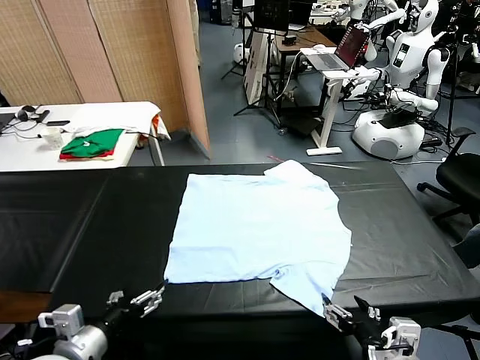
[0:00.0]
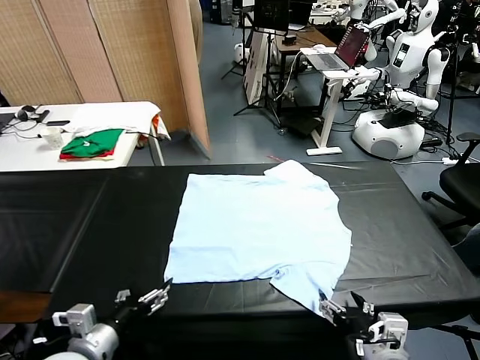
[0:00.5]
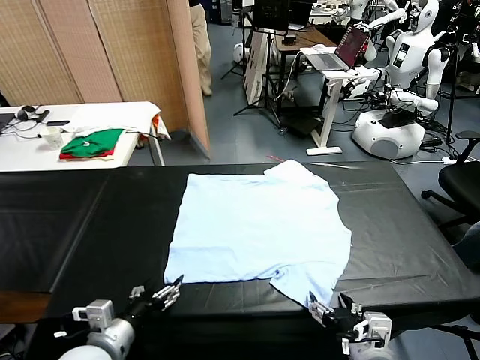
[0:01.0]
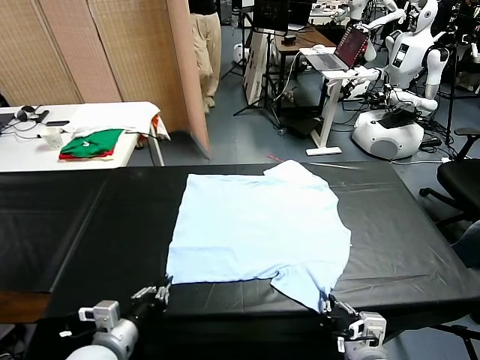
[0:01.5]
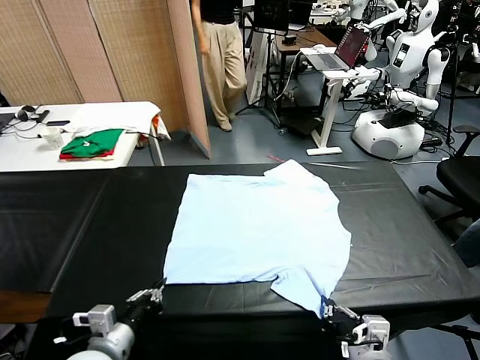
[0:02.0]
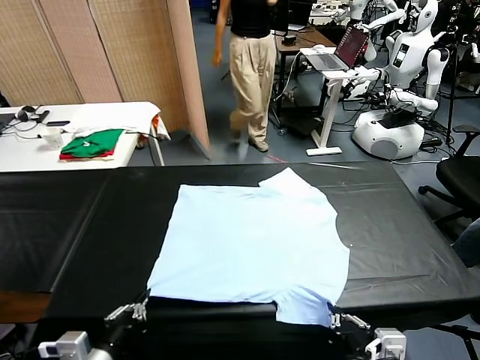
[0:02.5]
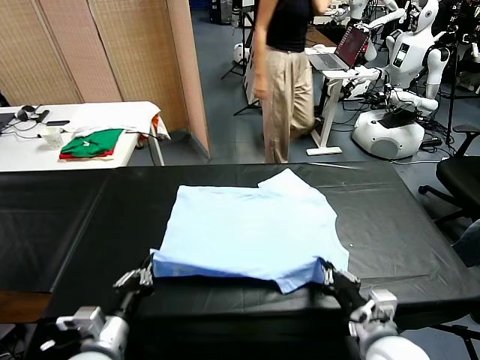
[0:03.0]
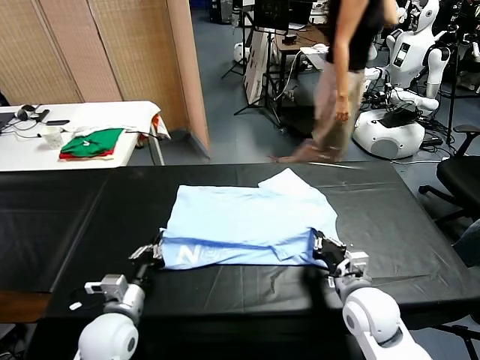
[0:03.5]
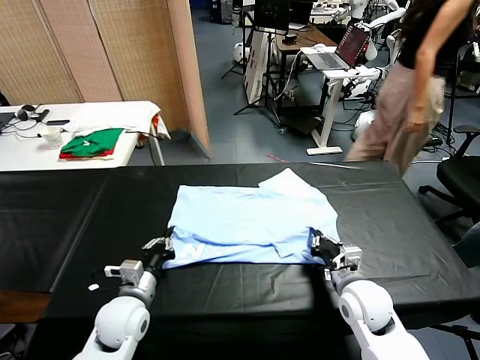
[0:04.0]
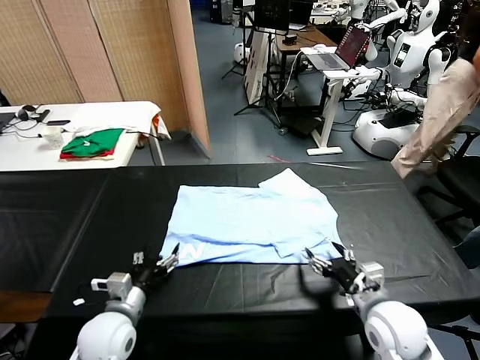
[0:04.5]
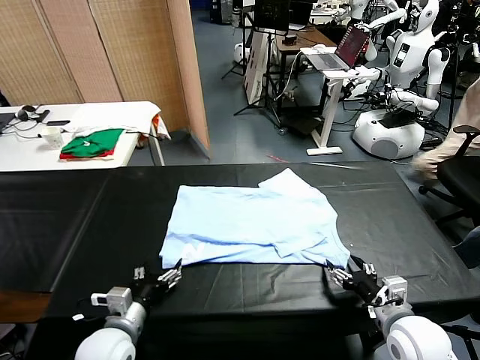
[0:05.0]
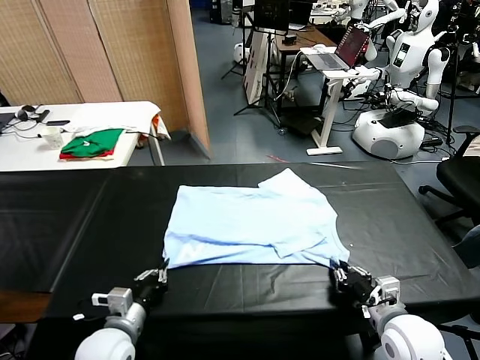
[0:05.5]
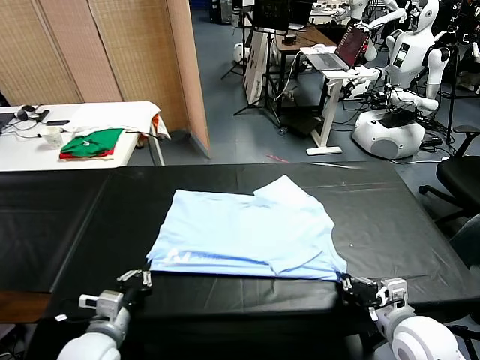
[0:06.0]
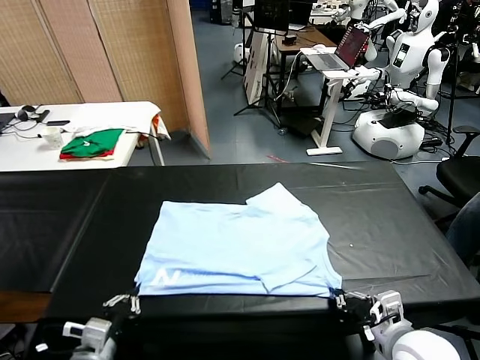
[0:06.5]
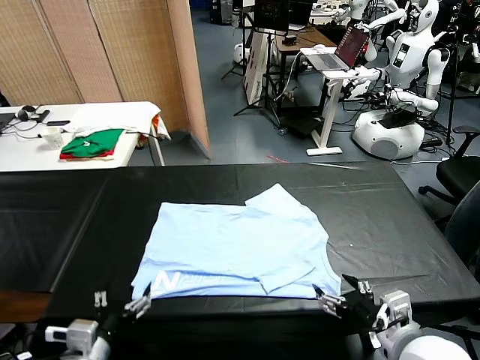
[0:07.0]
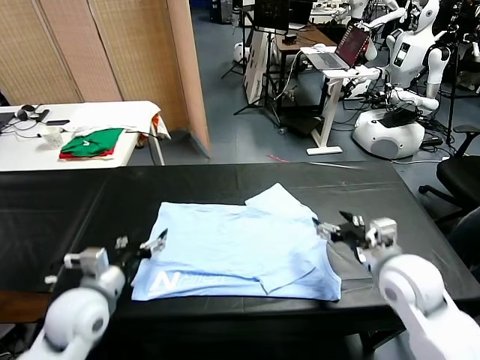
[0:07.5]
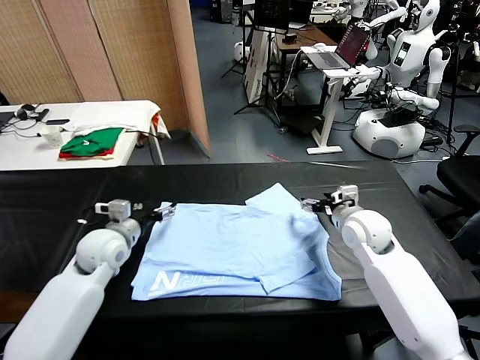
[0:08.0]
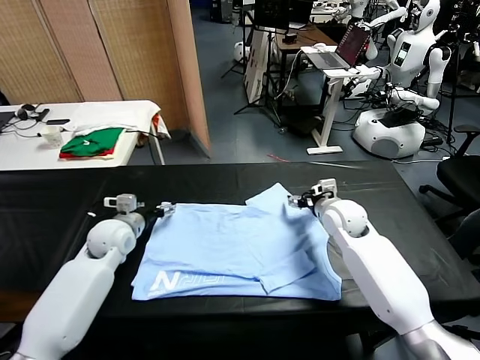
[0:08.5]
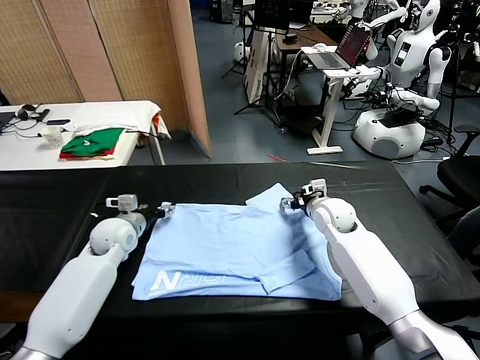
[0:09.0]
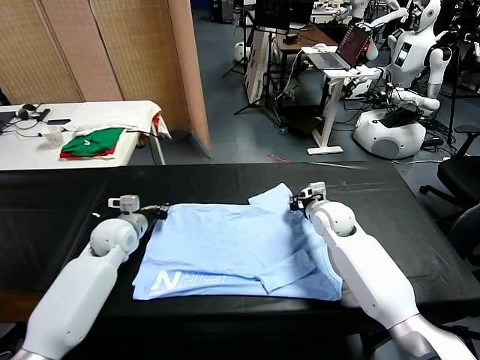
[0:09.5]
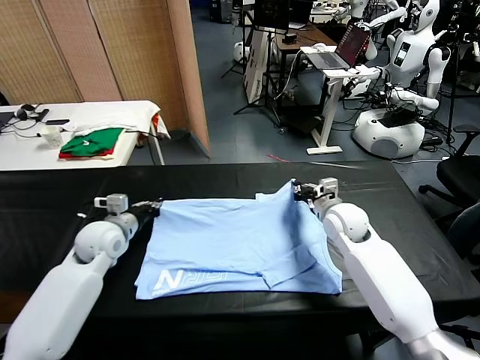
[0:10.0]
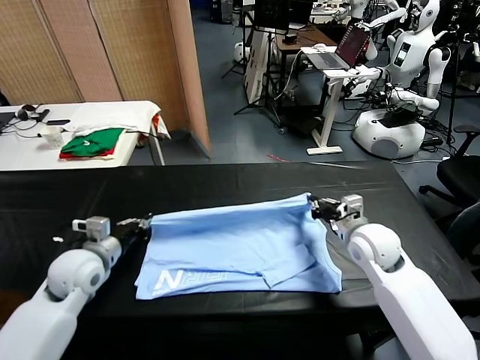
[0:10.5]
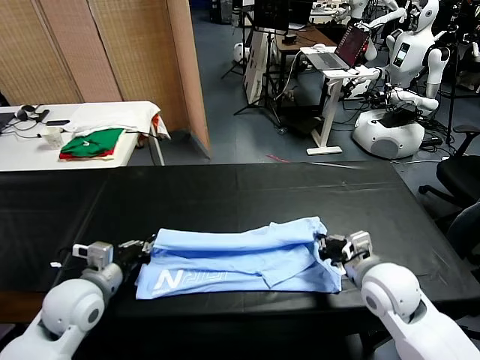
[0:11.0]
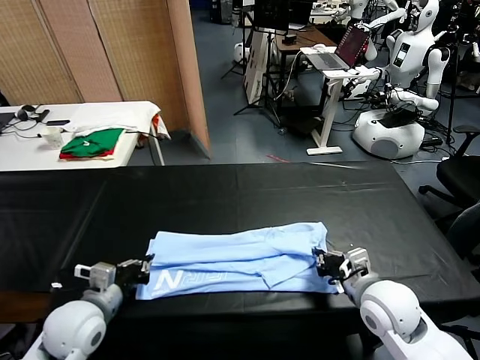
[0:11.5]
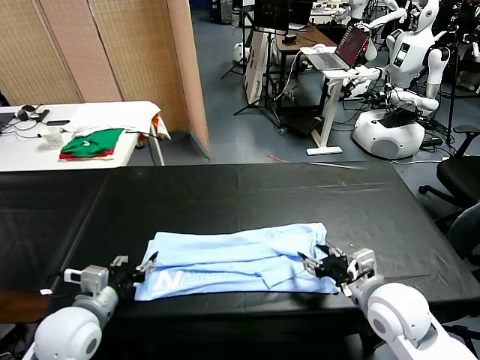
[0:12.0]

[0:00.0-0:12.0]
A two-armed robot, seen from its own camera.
Task of the whole recording: fold and organize the clothes.
Step, 0:00.0 to 0:01.5: use both grippers simultaneously to clamp the lower edge of the clothing fabric.
Step, 0:02.0 to 0:04.0: use both grippers to drag the lower edge of the fabric forward and fold it over the upper edge.
Step, 0:04.5 to 0:06.5: Drag the clothes downward with both gripper.
Step, 0:07.0 to 0:09.0: use both grippers simultaneously to clamp the upper edge of the clothing fabric.
Step, 0:09.5 to 0:11.5: use both grippers to drag the upper edge of the fabric backward and fold it over the lower edge.
0:02.0 to 0:04.0: Both grippers travel together forward, approximately 15 cm. The left gripper opens, while the right gripper opens its fingers.
0:04.0 to 0:06.0: The two grippers go roughly 10 cm backward. The right gripper closes up; the left gripper closes up.
0:06.0 to 0:08.0: The two grippers go about 25 cm forward. The right gripper opens its fingers, while the left gripper opens up.
0:08.0 to 0:10.0: The left gripper closes its fingers. Meanwhile the right gripper closes its fingers.
0:10.0 to 0:12.0: Both grippers move backward, about 15 cm. The right gripper opens. The left gripper opens.

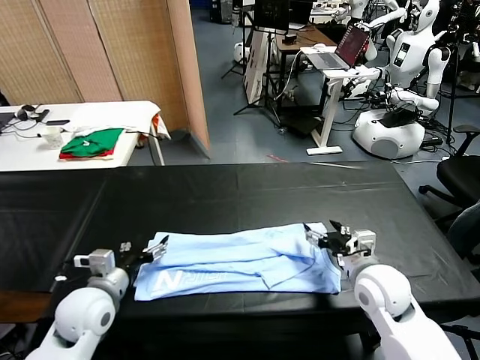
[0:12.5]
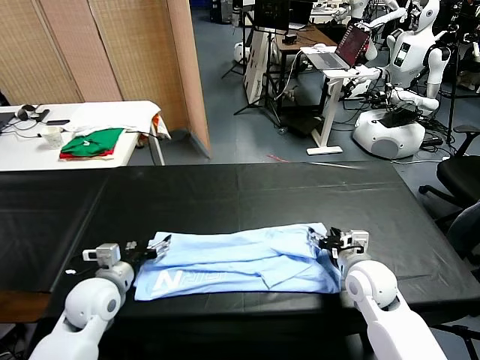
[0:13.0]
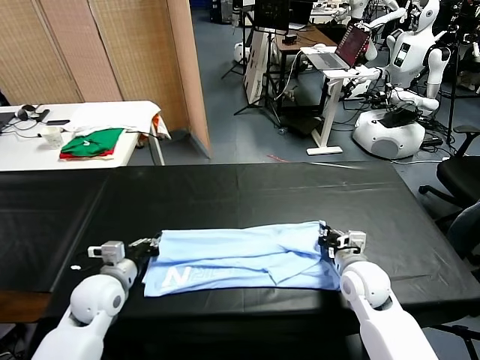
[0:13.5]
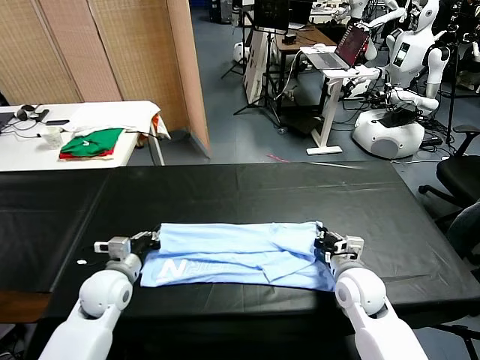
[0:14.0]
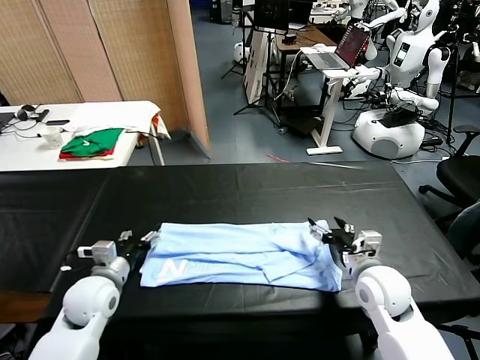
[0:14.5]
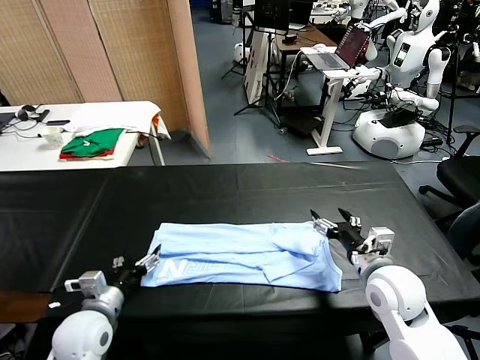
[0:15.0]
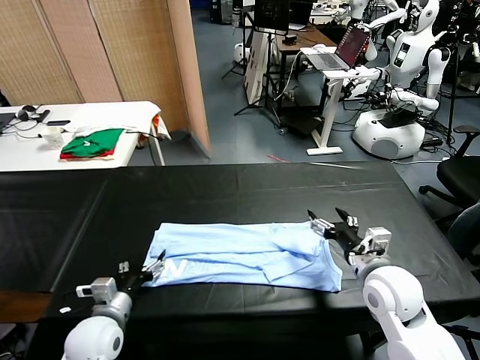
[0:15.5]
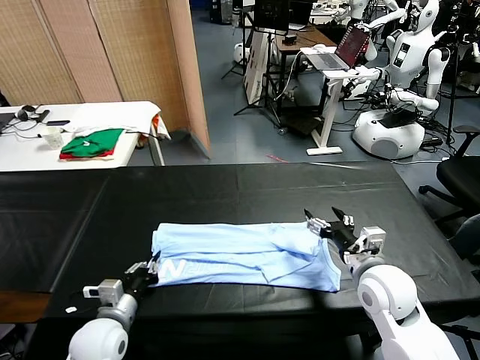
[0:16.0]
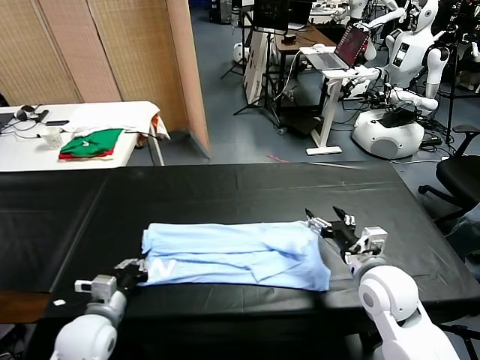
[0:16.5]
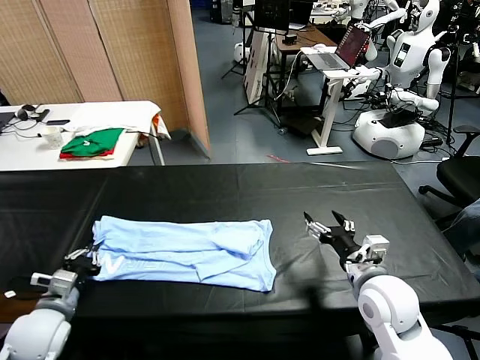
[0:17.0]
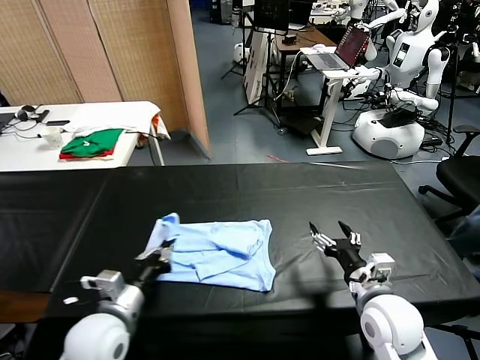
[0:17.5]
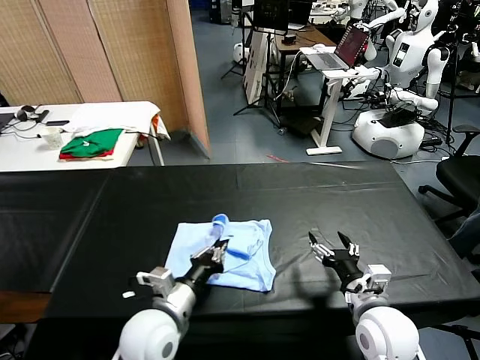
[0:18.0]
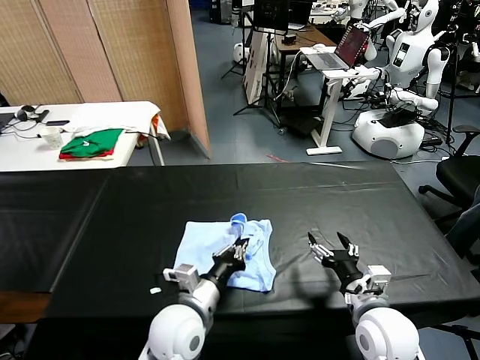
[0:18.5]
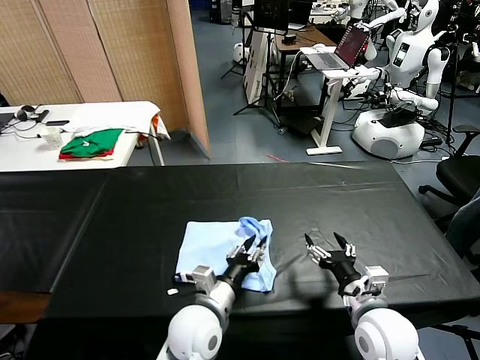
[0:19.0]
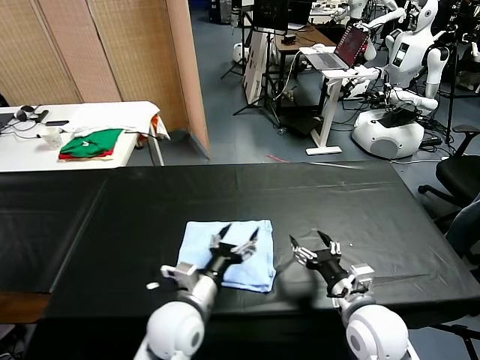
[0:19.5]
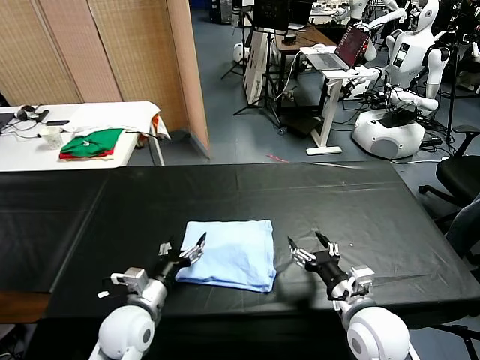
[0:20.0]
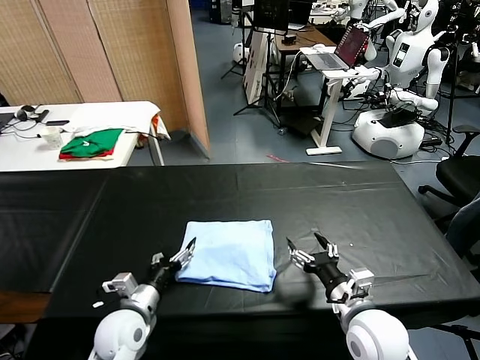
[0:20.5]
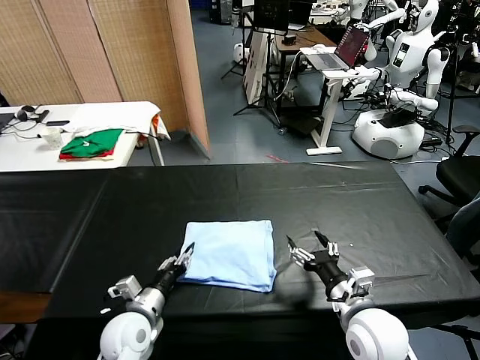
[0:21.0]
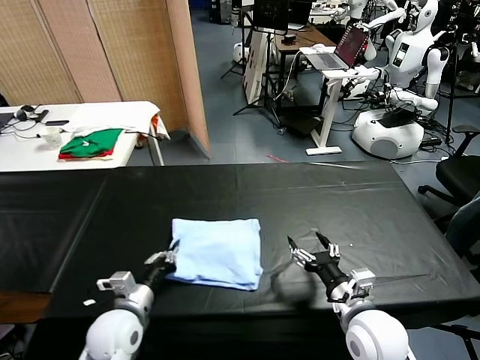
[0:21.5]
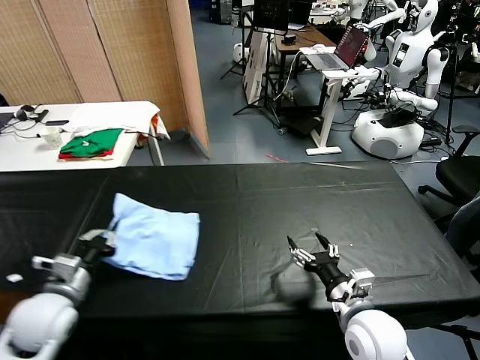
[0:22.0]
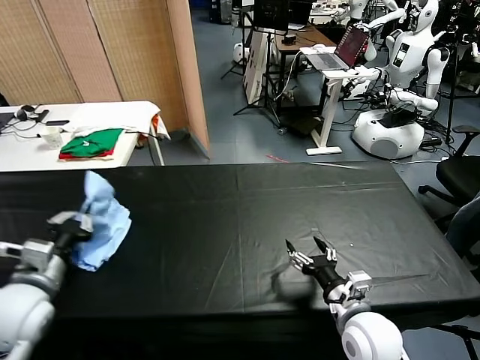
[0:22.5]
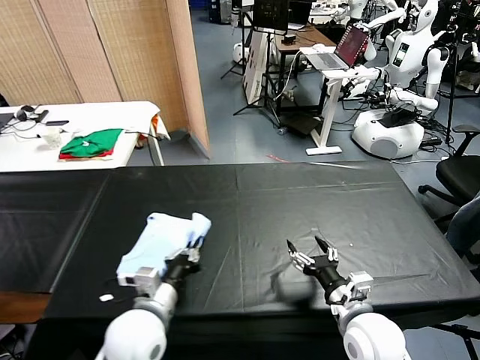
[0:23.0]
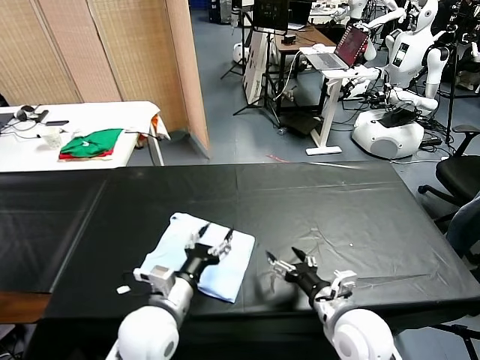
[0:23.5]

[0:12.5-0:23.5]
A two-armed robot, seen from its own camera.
Task of the whole recording: fold and organize the clothes.
Step, 0:12.5 to 0:16.0: use the left gripper to clamp the left edge of the fabric.
Step, 0:16.5 to 0:19.0: use the left gripper to drag the left edge of the fabric to the left and folds it over the right edge.
Step, 0:19.5 to 0:23.0: Flip the folded clothes over with left gripper.
0:12.5 to 0:14.5: The right gripper closes and opens again. The left gripper closes, then reopens.
0:14.5 to 0:16.0: The left gripper heads backward, covering approximately 5 cm, and closes its fingers.
0:16.0 to 0:18.0: The right gripper travels backward by some 5 cm. The left gripper moves to the right and upward, some 15 cm.
0:18.0 to 0:20.0: The left gripper heads to the left and downward, covering some 10 cm, and opens.
0:20.0 to 0:21.5: The left gripper closes.
0:21.5 to 0:23.5: The left gripper travels to the right and upward by some 10 cm, and opens its fingers.

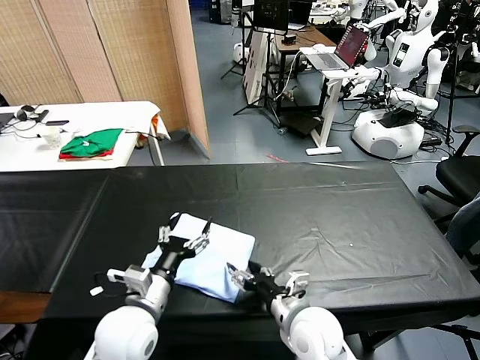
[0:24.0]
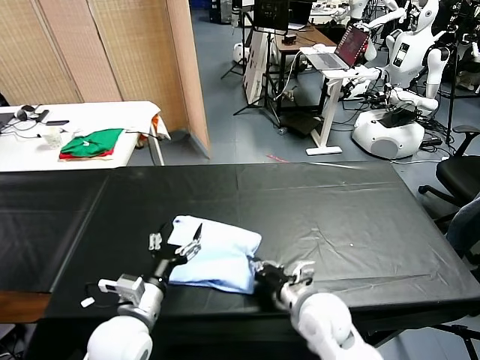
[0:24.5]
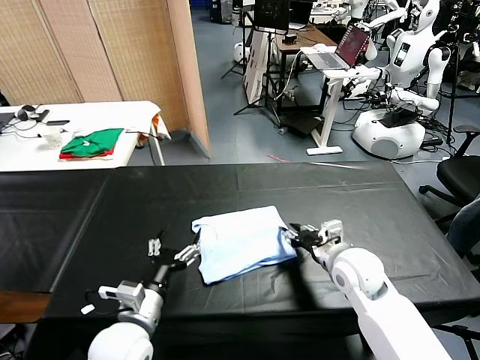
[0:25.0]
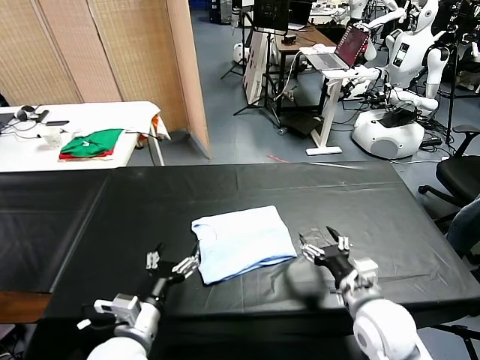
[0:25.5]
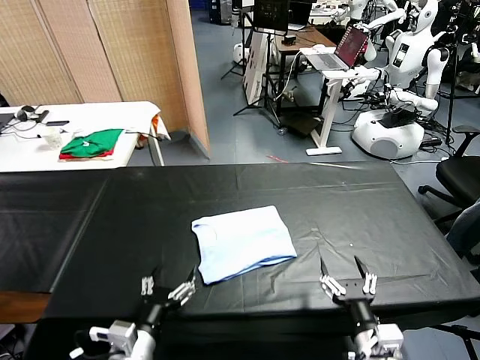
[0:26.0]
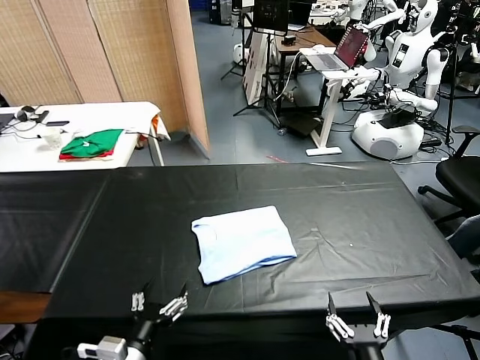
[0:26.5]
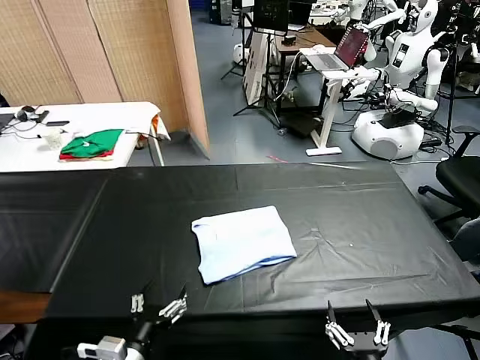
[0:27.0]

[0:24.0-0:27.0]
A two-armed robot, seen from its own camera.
Task of the whole recording: fold and organize the clothes.
Step, 0:24.0 to 0:25.0: Drag the clothes to the center of the table.
0:24.0 to 0:25.5: The right gripper moves to the right, some 10 cm, and closes, then reopens.
0:25.5 to 0:27.0: The right gripper heads backward, covering about 20 cm. Meanwhile the left gripper goes roughly 10 cm backward.
